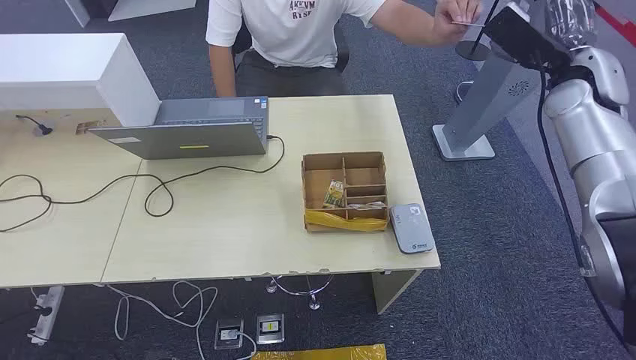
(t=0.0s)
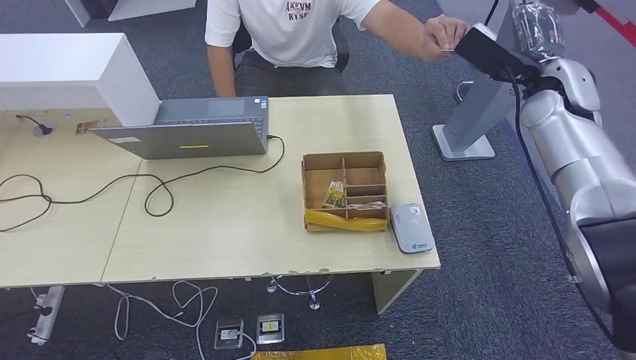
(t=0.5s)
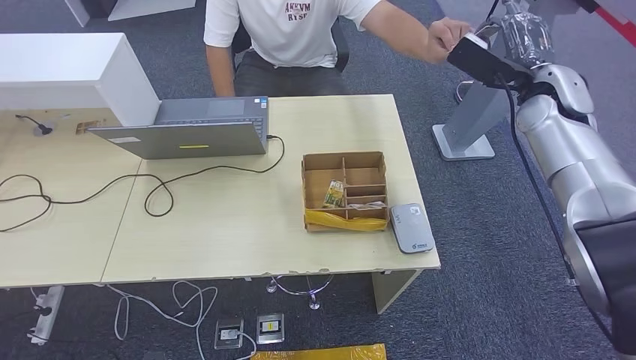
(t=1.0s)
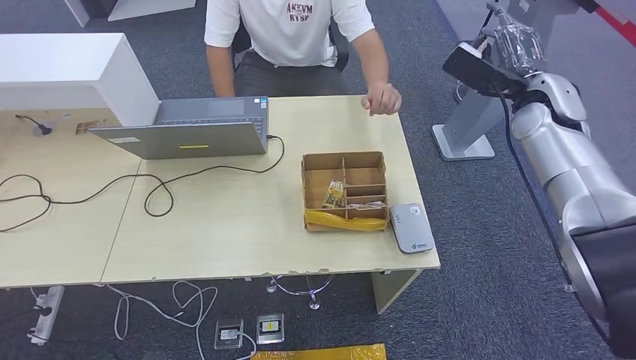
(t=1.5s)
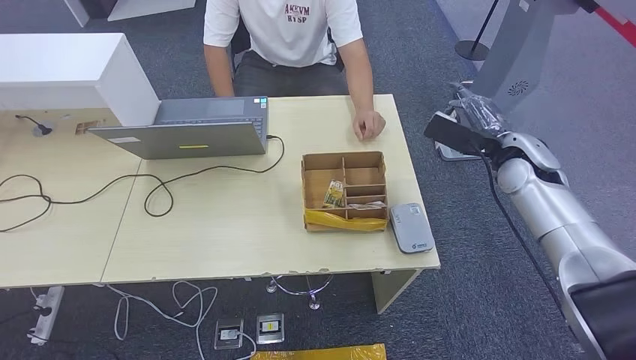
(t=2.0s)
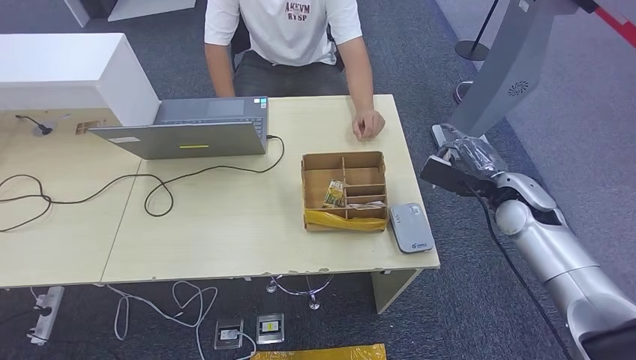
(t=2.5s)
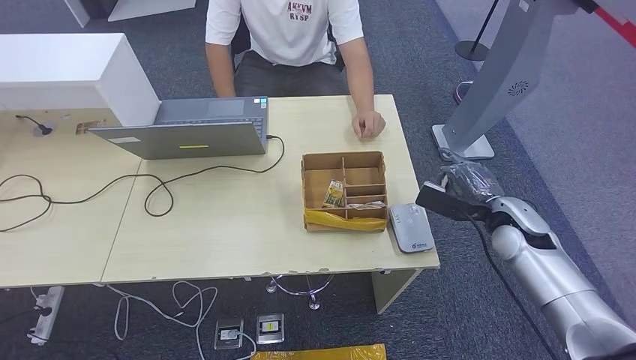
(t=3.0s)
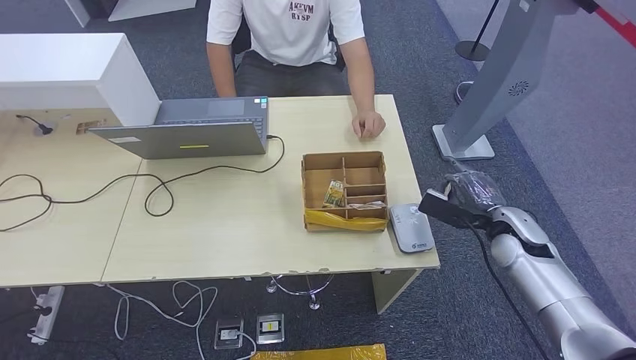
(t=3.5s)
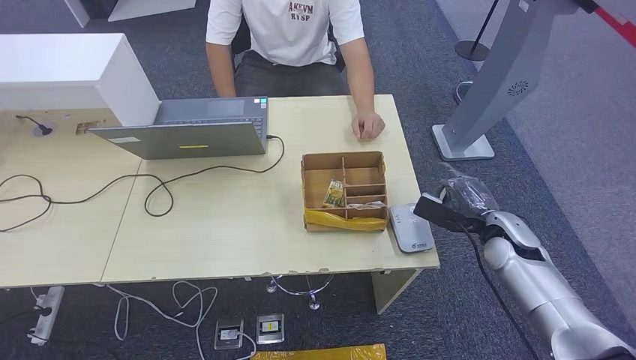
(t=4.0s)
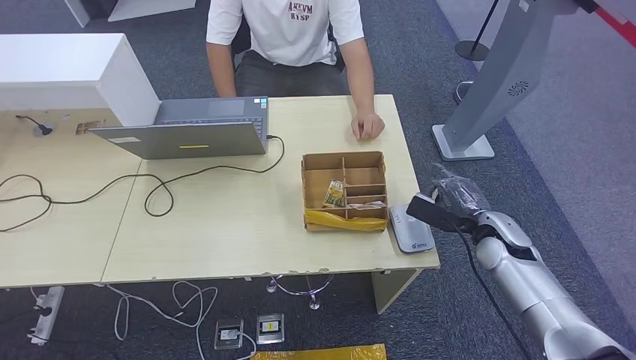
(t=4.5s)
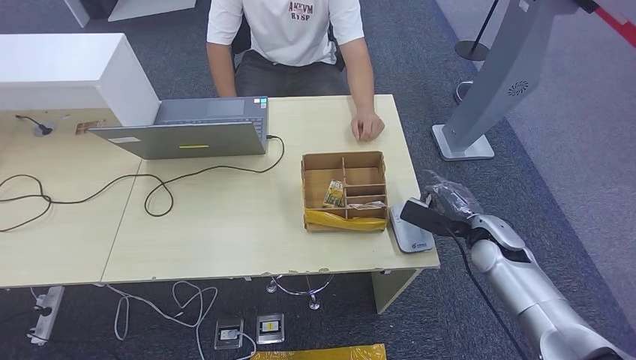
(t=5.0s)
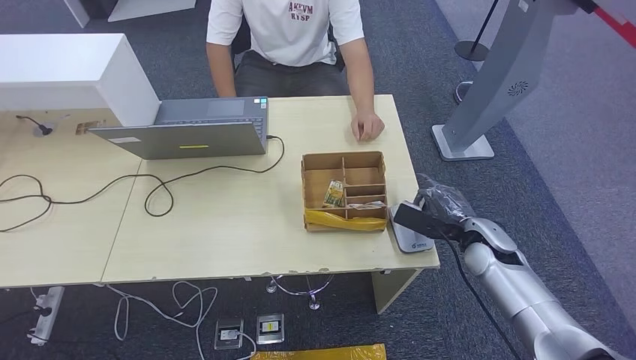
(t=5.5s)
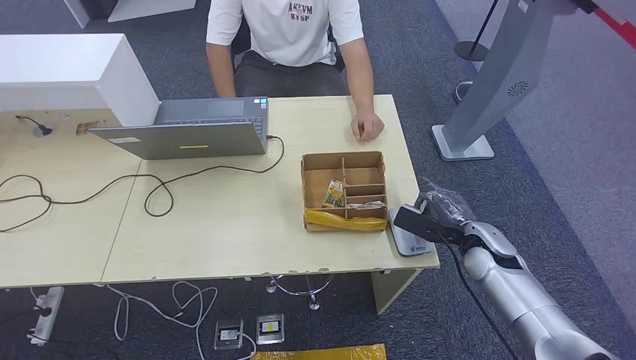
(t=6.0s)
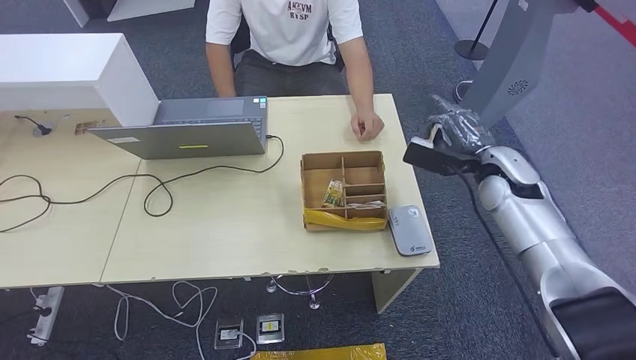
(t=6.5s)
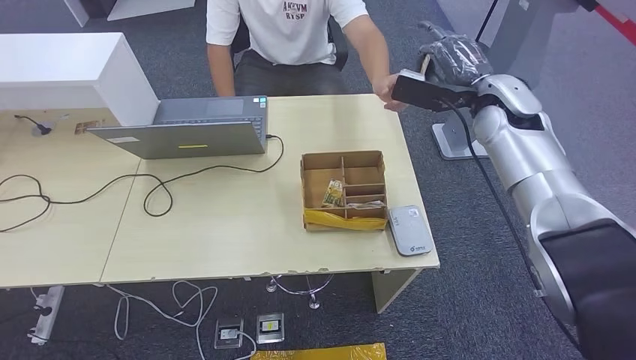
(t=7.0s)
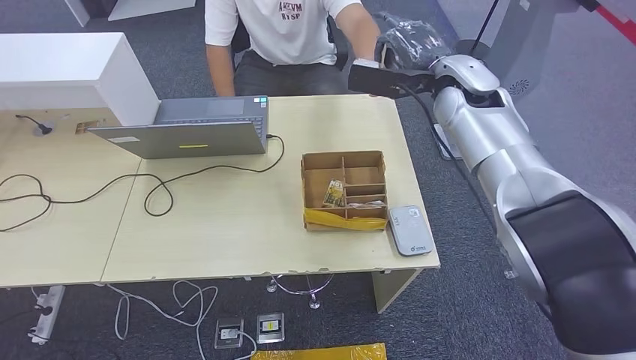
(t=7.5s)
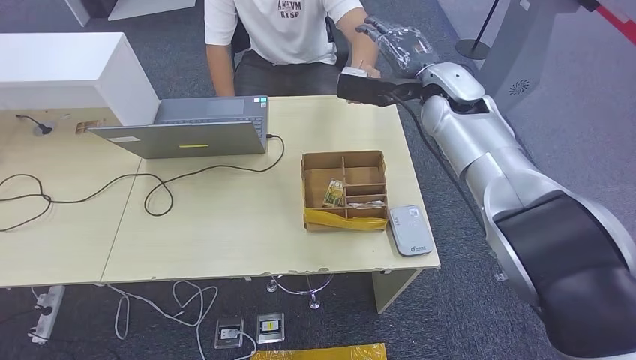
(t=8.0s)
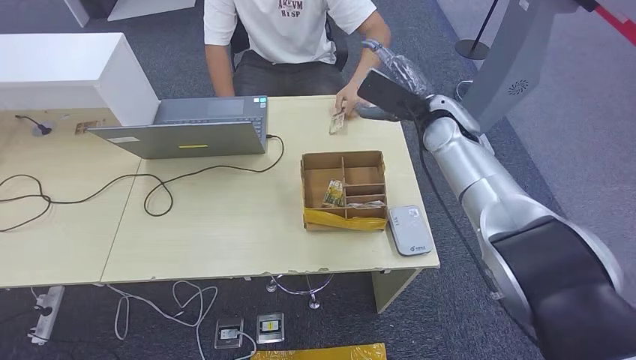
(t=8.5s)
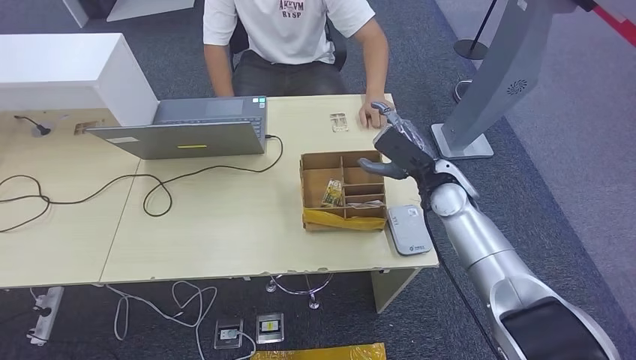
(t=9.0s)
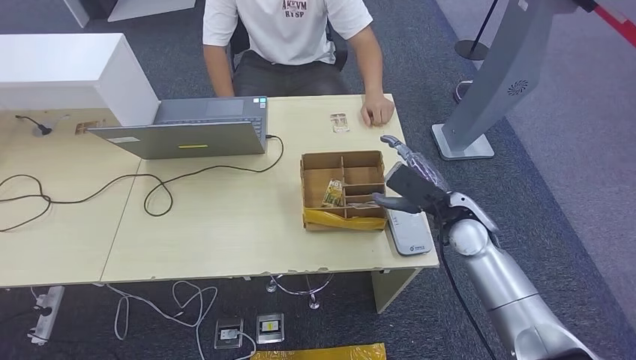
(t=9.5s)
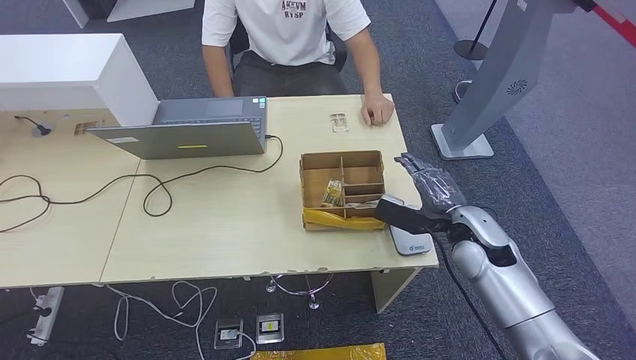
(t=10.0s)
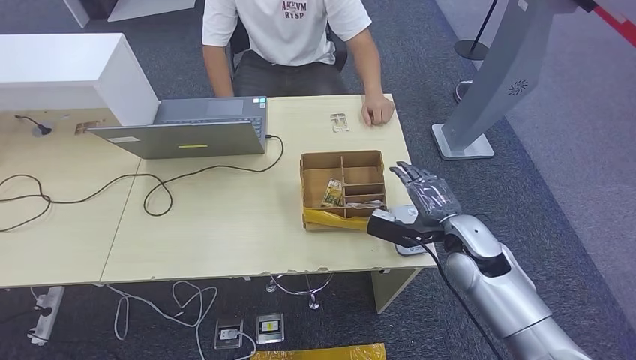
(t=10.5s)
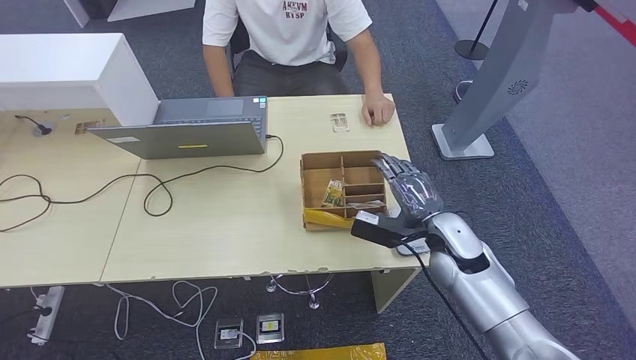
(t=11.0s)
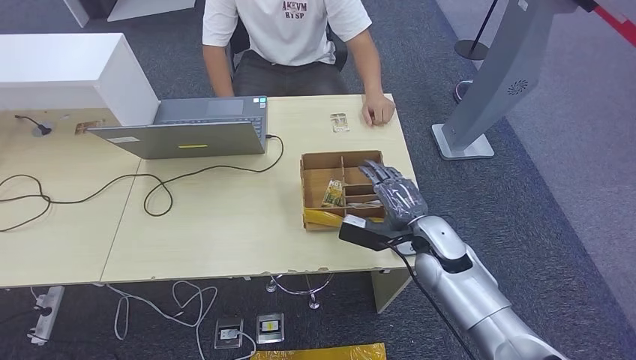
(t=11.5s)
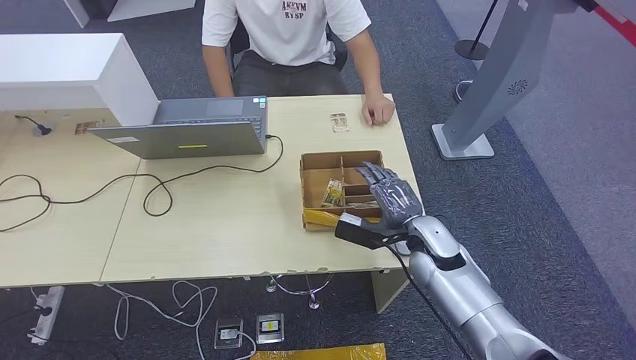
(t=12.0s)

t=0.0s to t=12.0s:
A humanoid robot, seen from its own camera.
Step, t=0.0s to t=1.5s: Take the ID card from the person's hand.
Step, t=2.0s to t=6.0s: Place the ID card on the card reader.
Step, t=6.5s to t=8.5s: Hand the ID card to the person.
t=2.0s to t=4.0s: The right hand heads downward and backward, covering about 15 cm.
t=4.0s to t=6.0s: The hands stay close to where they were, moving slightly.
t=6.0s to t=8.0s: The right hand heads upward and forward, covering about 30 cm.
t=8.0s to t=10.0s: The right hand is displaced downward and backward by about 25 cm.
t=10.0s to t=12.0s: The right hand is displaced to the left by some 5 cm.

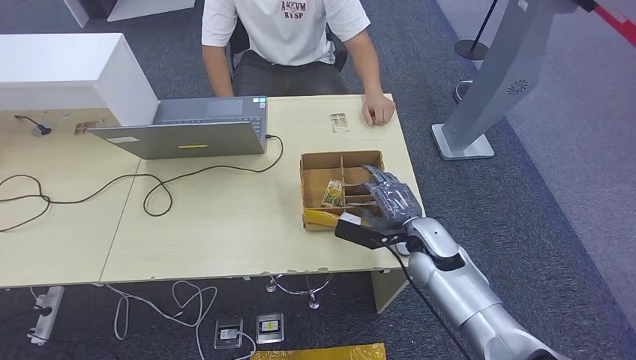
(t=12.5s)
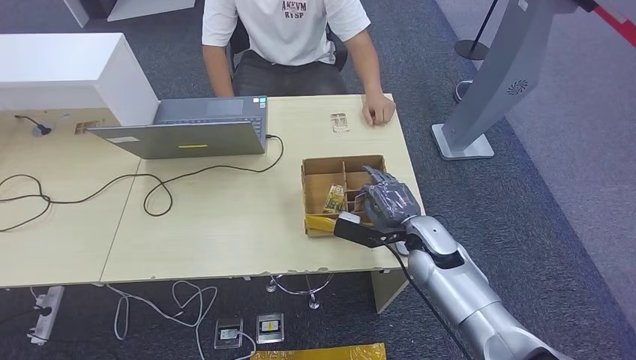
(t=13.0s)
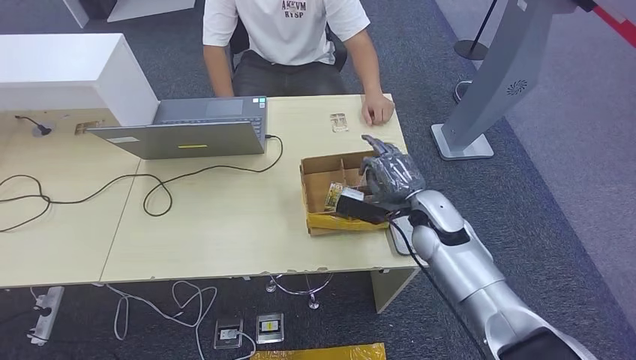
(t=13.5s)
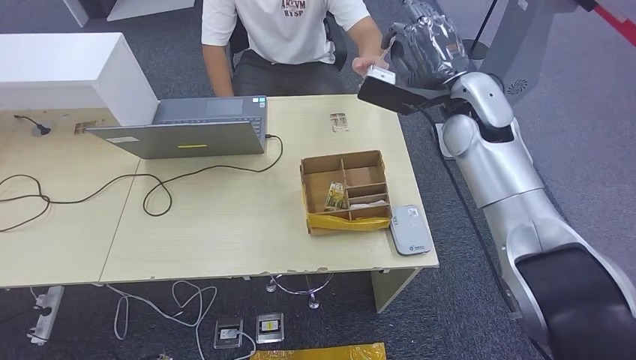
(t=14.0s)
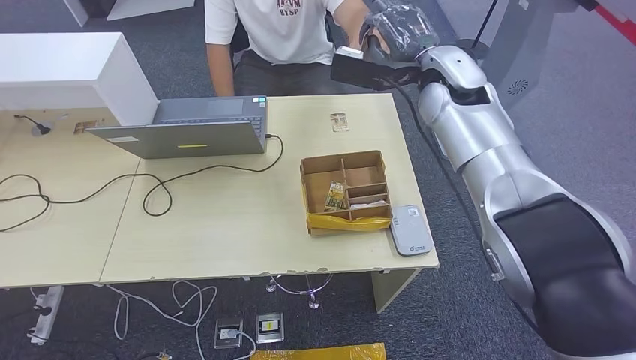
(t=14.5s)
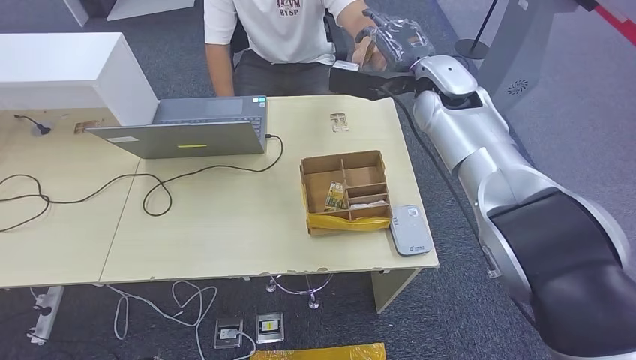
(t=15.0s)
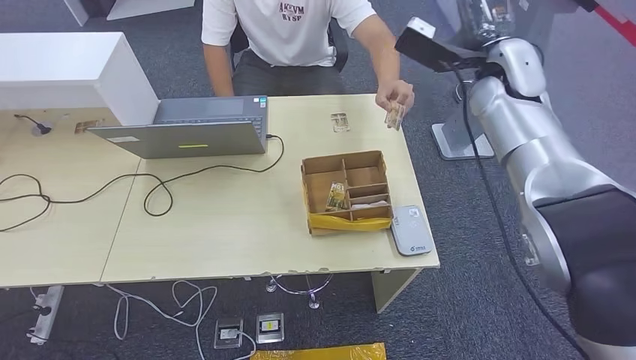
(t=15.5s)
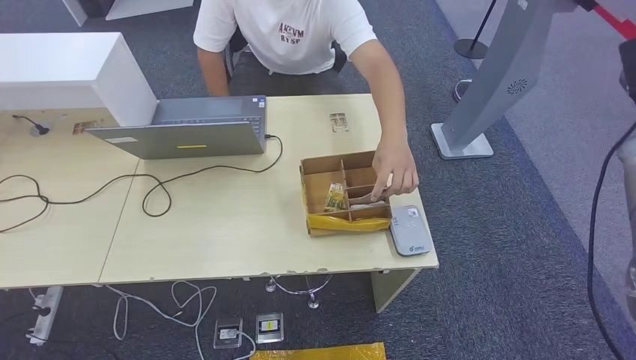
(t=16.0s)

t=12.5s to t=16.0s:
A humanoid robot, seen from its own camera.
Step, t=12.5s to t=13.5s: Pick up the room key from the key card box.
Step, t=14.0s to t=16.0s: Hand the room key to the person.
t=14.5s to t=16.0s: The right hand goes approximately 30 cm to the right, while the left hand is displaced to the right by roughly 5 cm.
